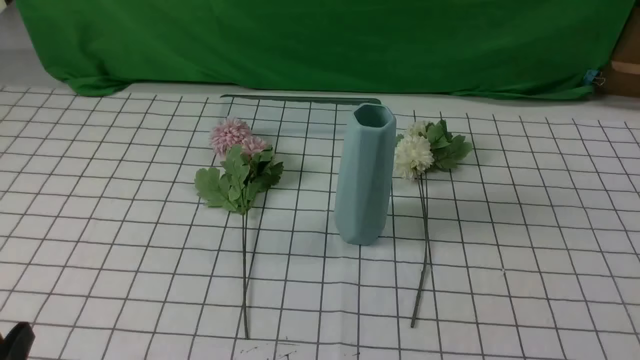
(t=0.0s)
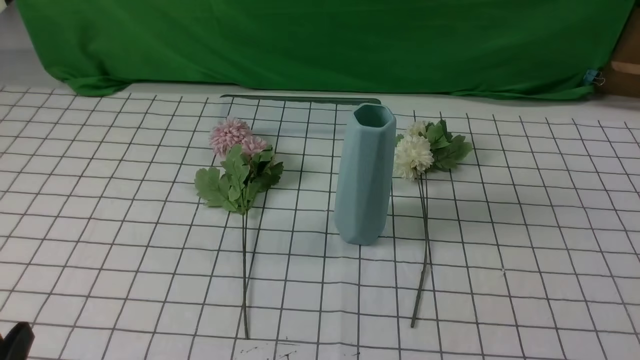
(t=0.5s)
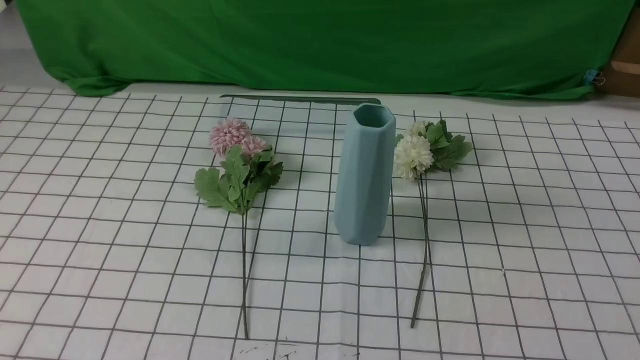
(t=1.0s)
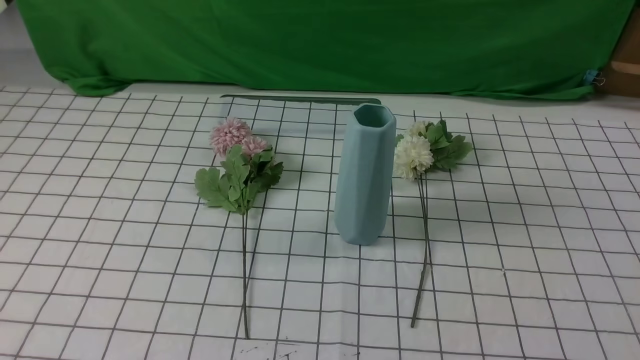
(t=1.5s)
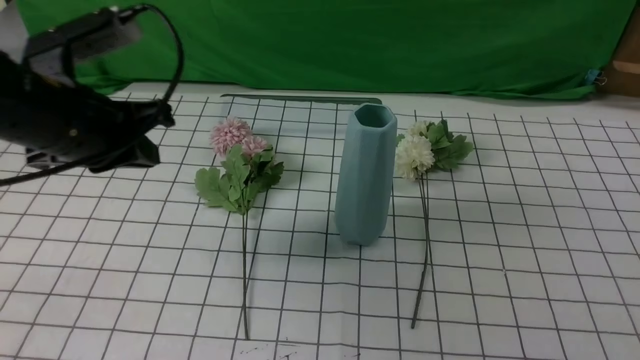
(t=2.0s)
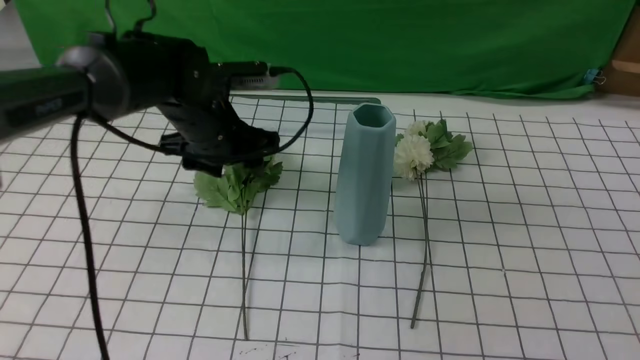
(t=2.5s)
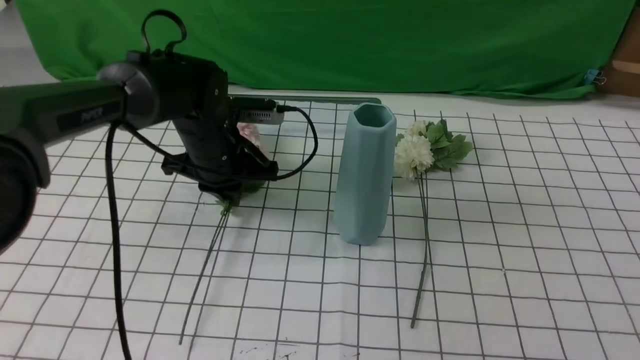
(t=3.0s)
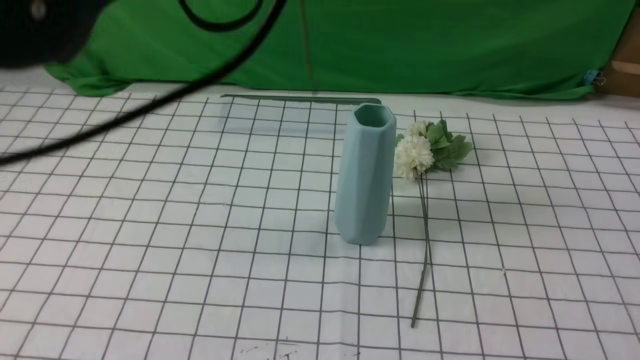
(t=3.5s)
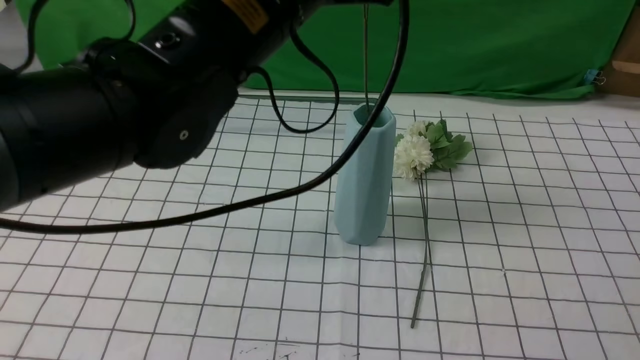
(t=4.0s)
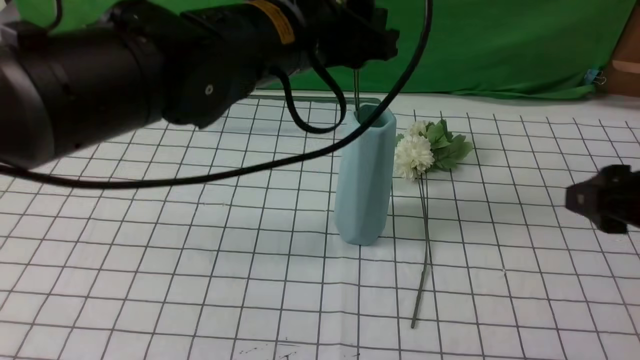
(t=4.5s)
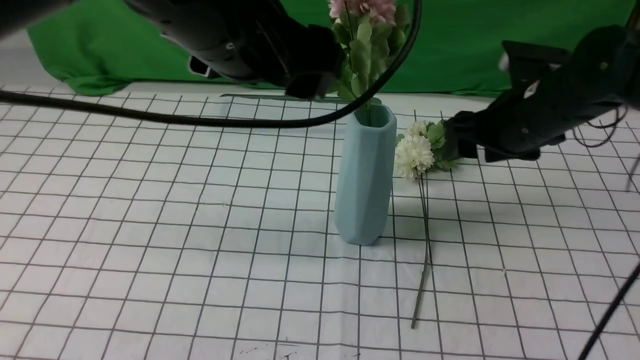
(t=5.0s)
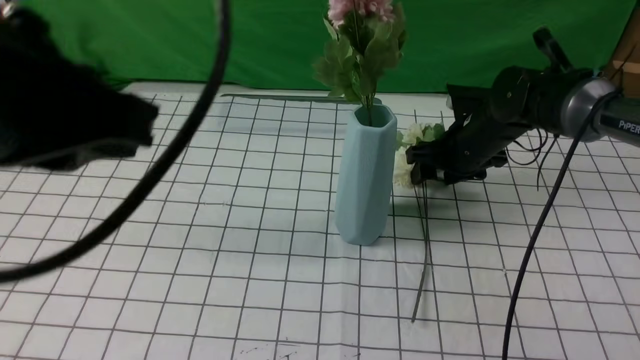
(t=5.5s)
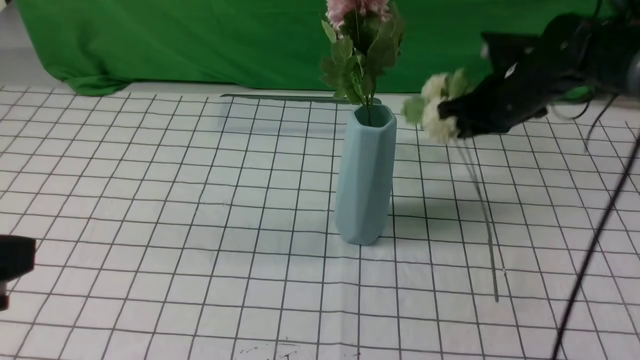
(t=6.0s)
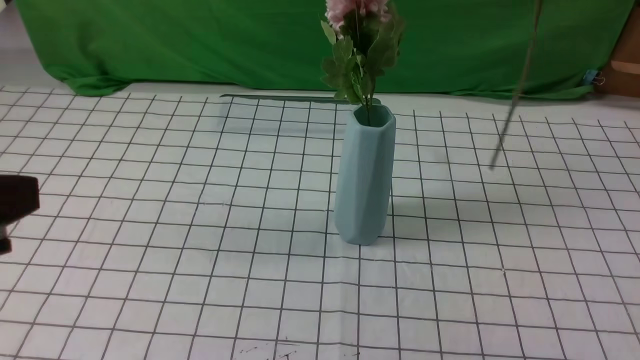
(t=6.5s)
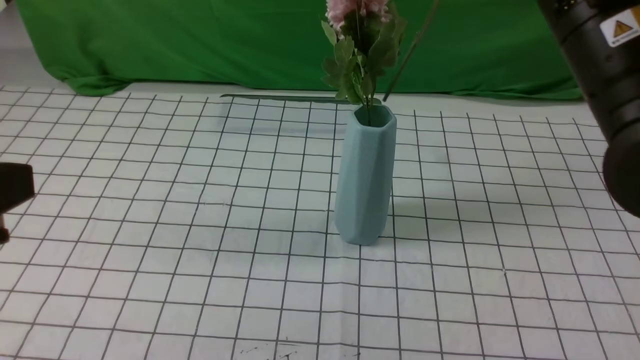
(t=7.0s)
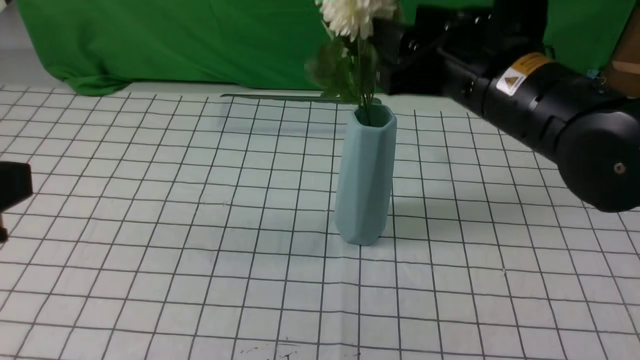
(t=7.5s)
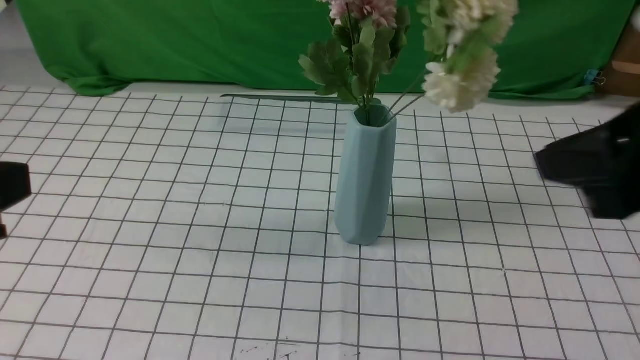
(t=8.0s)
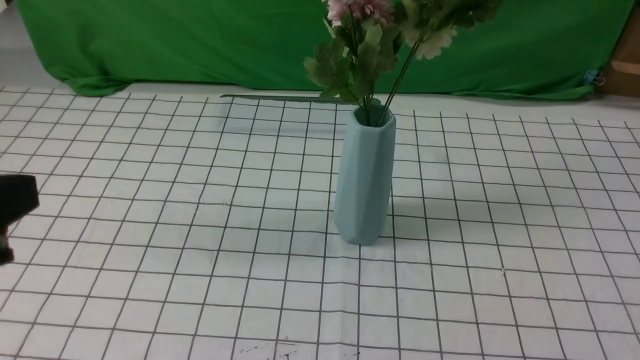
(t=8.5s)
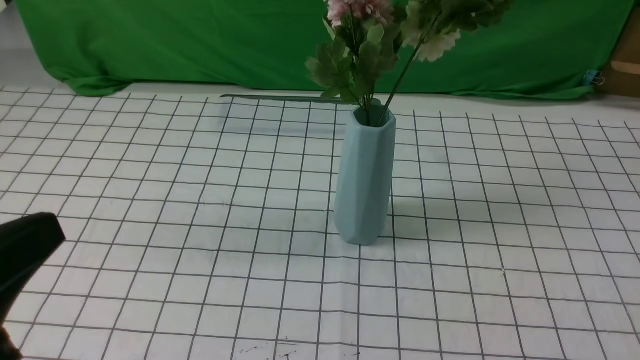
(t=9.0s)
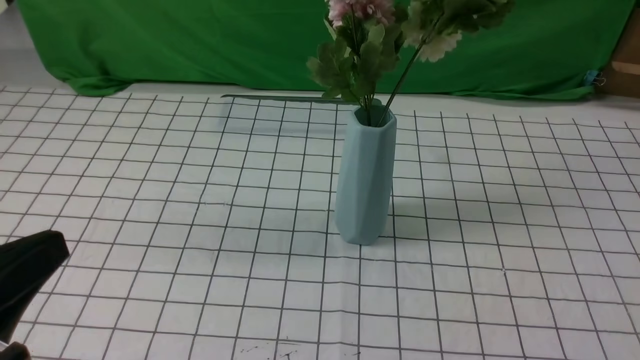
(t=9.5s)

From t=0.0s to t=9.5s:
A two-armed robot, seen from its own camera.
Task of the whole recording: insert the flowers into the vase on the table with the white tablecloth.
Step, from t=0.0s to t=3.0s: use the left arm to grab a bunch of fresh flowers.
Step, from t=3.5s to t=4.5s: use the left arm to insert the flowers into the vase.
Step, from t=5.0s to t=5.5s: use the right arm to grab a bunch of fresh flowers.
Step, from t=6.0s to t=7.5s: use the right arm to insert the flowers into the vase.
From t=0.0s to t=2.0s: The left gripper travels forward and upward by about 30 cm, and closes up. The right gripper is displaced upward by about 10 cm.
From t=2.0s to t=4.0s: The left gripper swings up and down, roughly 25 cm each way, with 2 reversals, and opens, then closes once more. Meanwhile the right gripper shifts roughly 10 cm forward and upward, and opens up.
From t=4.0s to t=5.5s: The right gripper shifts some 35 cm forward and downward, while the left gripper is displaced backward and to the left by about 20 cm, and opens and closes again.
From t=5.5s to t=7.5s: The right gripper shifts about 25 cm upward and backward, and closes, then opens again, while the left gripper is displaced backward and to the left by roughly 10 cm.
From t=7.5s to t=9.5s: The right gripper is displaced backward and to the right by roughly 35 cm, and closes; the left gripper goes approximately 10 cm downward.
